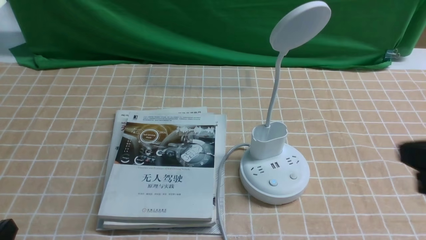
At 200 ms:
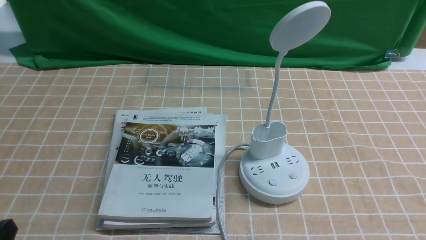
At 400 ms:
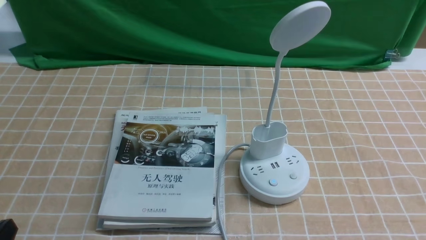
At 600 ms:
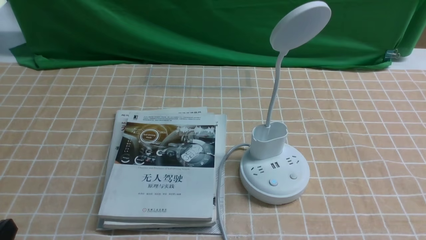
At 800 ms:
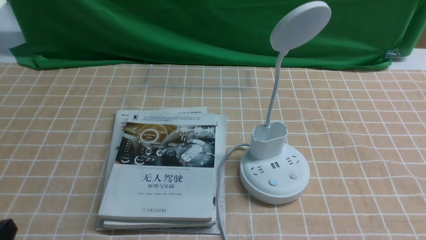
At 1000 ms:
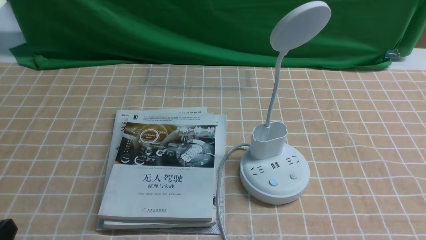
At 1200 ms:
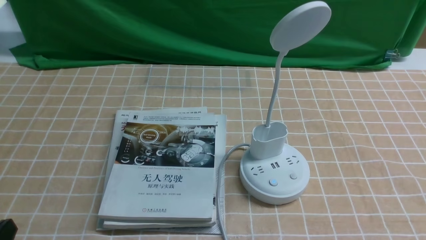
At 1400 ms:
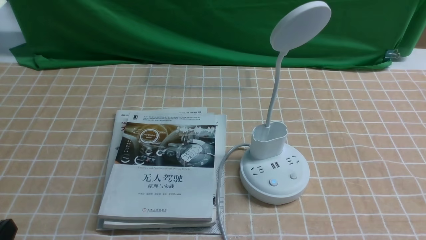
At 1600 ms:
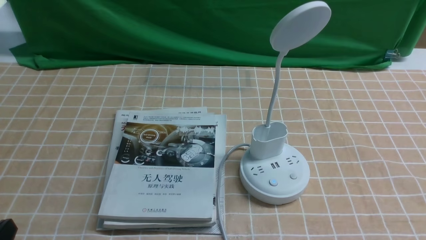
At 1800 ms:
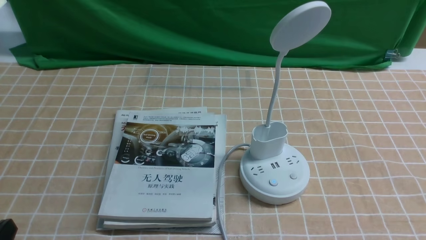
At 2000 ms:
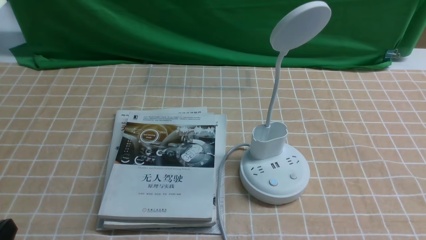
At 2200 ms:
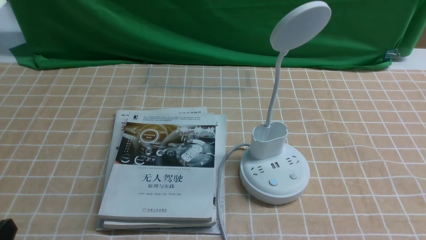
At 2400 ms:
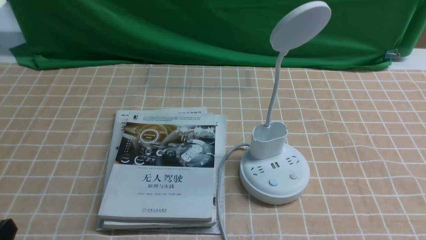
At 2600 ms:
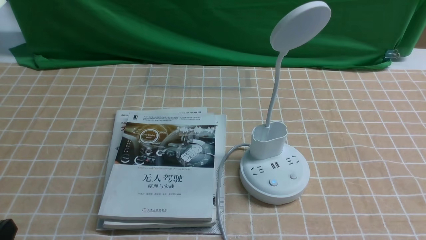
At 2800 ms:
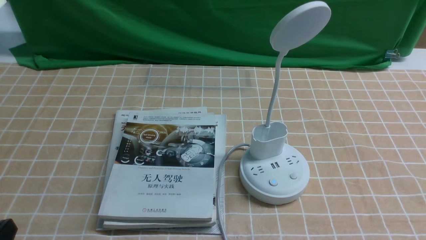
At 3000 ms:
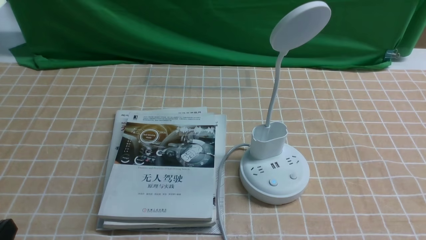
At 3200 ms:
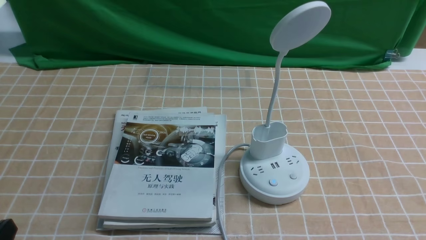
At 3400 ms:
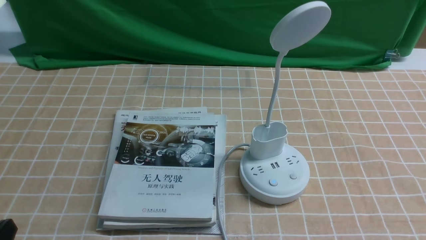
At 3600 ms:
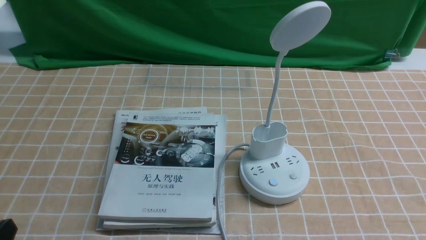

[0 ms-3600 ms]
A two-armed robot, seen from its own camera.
Task of the whole recording: turn off the desk lamp on the light coffee tablecloth by hand.
0 ms to 1800 ms: The right gripper travels downward and backward by roughly 15 cm.
